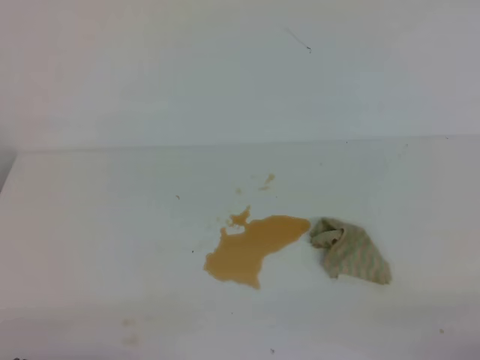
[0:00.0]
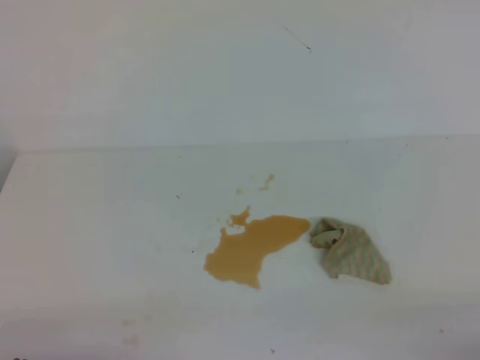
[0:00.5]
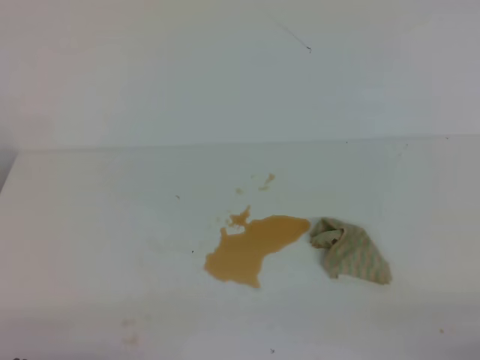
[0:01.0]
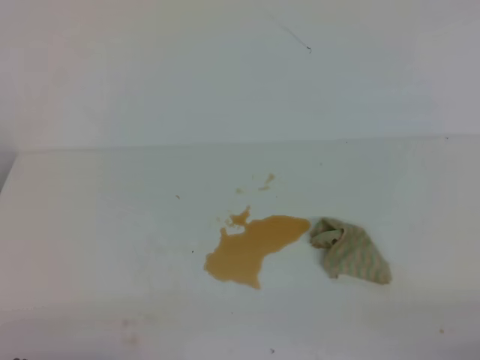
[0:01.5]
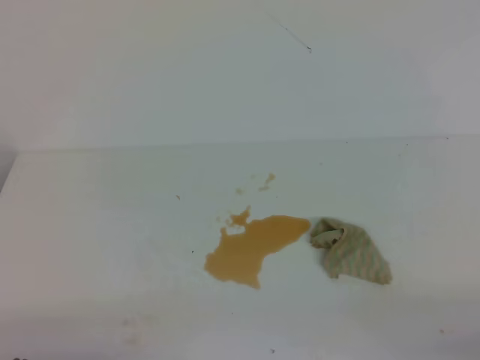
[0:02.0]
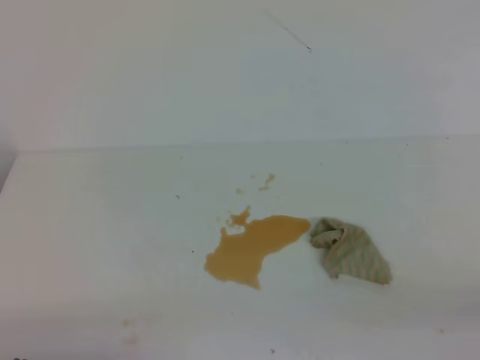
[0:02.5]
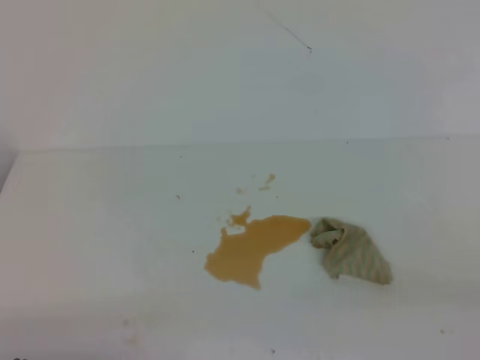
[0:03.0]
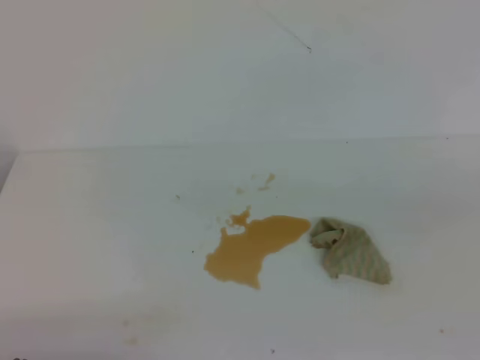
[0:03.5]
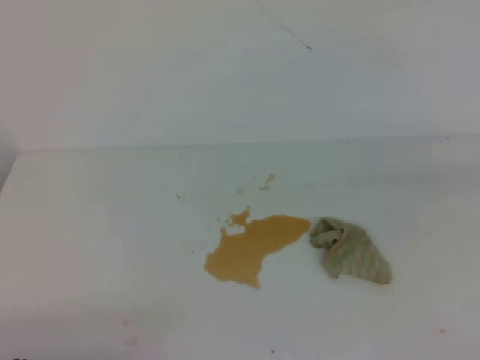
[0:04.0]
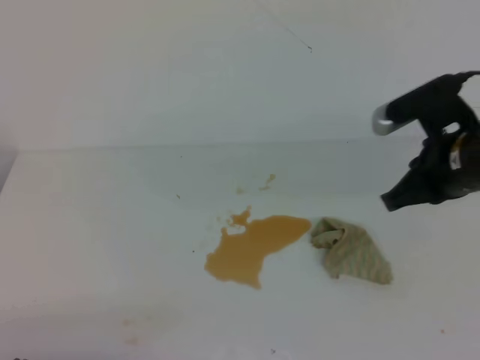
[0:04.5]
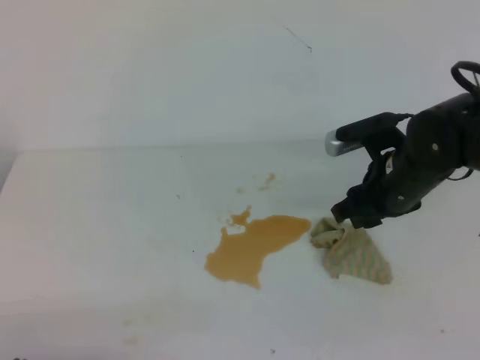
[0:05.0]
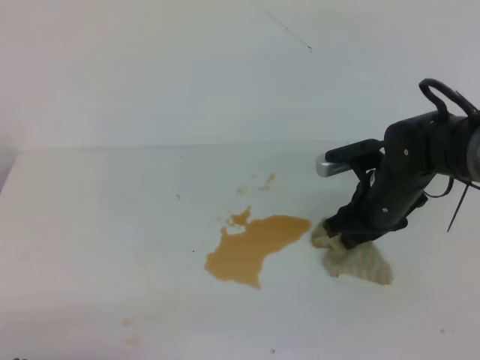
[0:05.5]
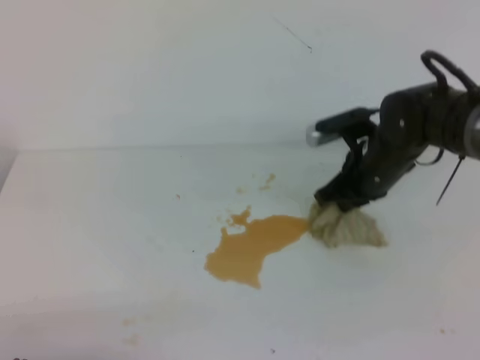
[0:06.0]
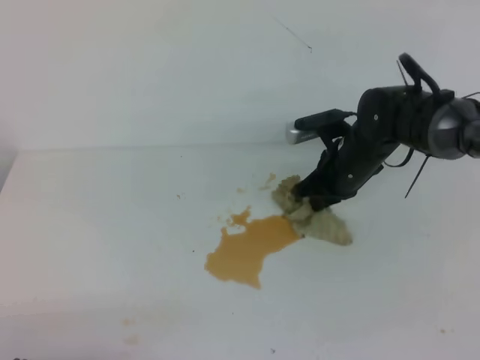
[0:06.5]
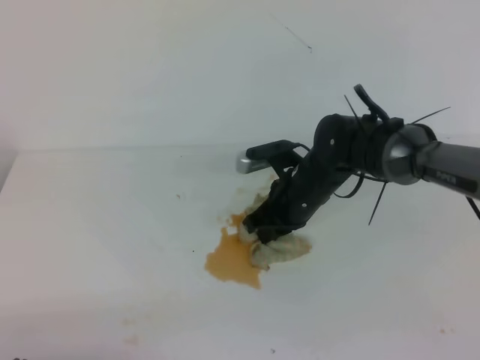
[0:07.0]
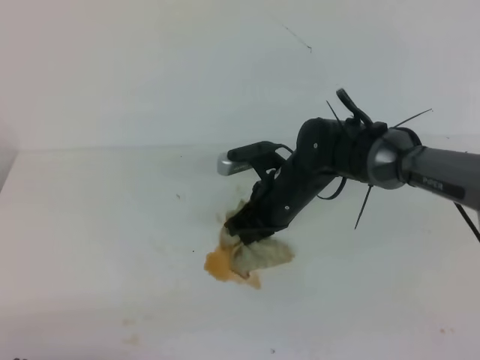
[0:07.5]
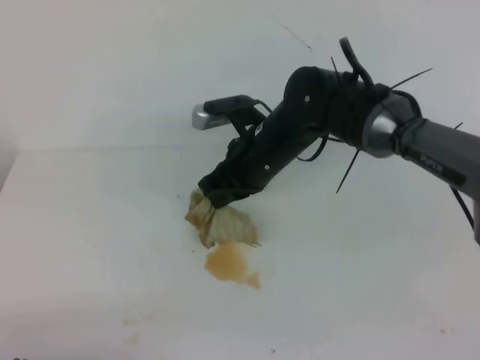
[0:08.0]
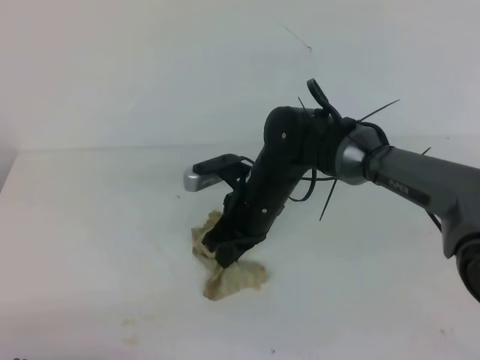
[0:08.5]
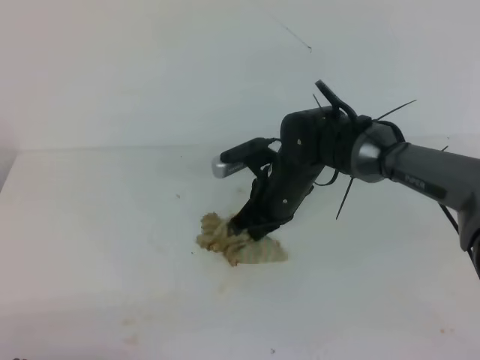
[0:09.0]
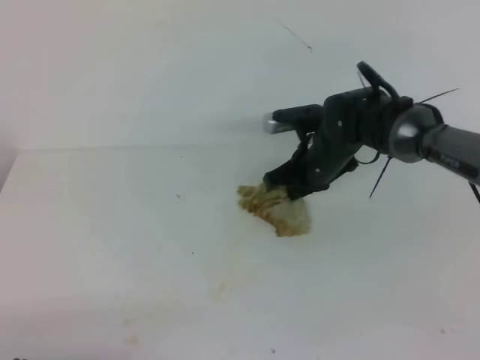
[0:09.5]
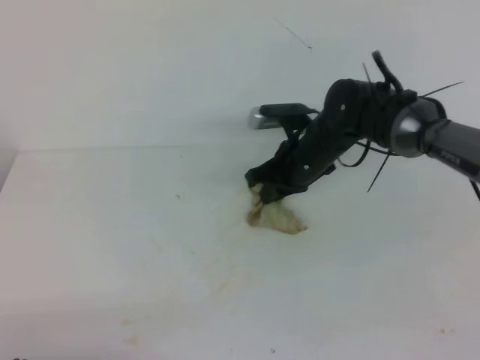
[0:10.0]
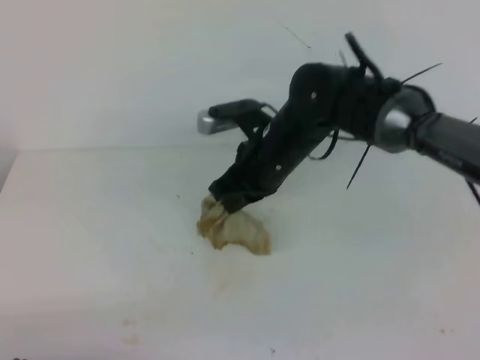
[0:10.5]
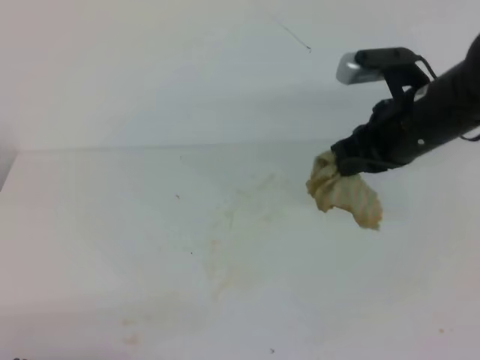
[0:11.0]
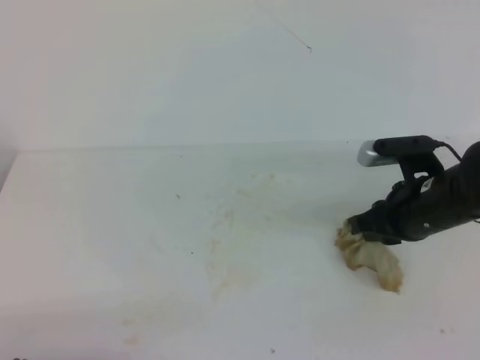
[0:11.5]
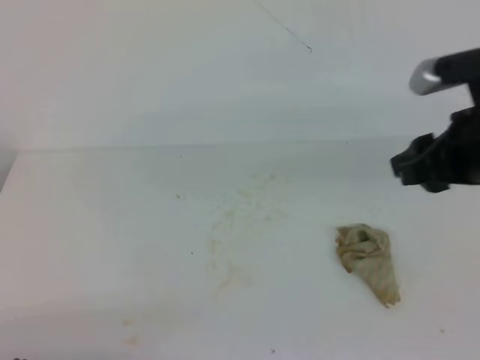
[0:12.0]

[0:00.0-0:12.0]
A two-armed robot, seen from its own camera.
0:04.0 to 0:06.0: The right gripper heads forward, to the left and downward, covering roughly 25 cm, and opens, then closes again.
0:06.0 to 0:08.0: The right gripper travels to the left by some 15 cm.
0:08.0 to 0:10.0: The right gripper shifts approximately 5 cm to the right.
0:10.0 to 0:12.0: The right gripper goes approximately 25 cm backward, to the right and upward, and opens its fingers.

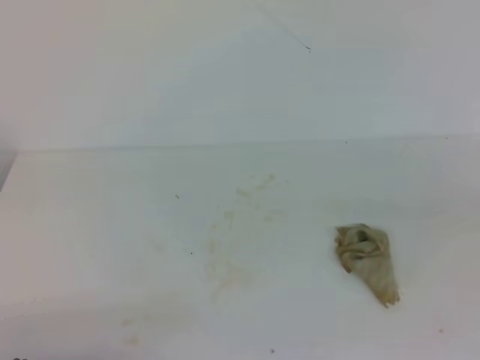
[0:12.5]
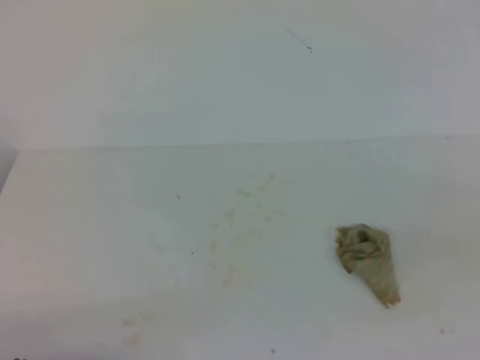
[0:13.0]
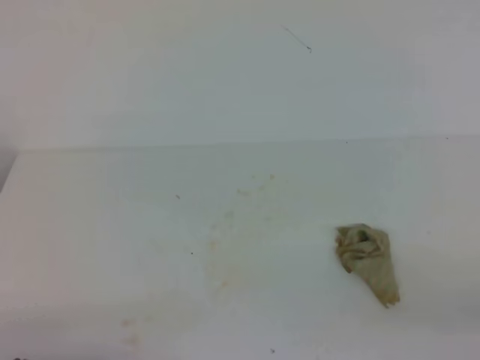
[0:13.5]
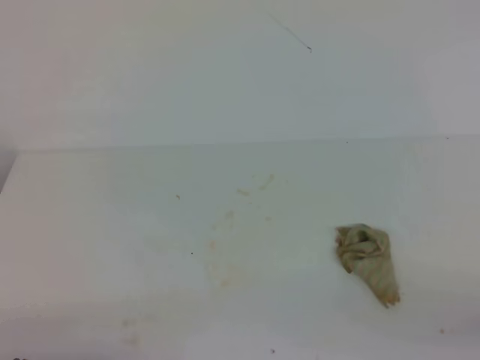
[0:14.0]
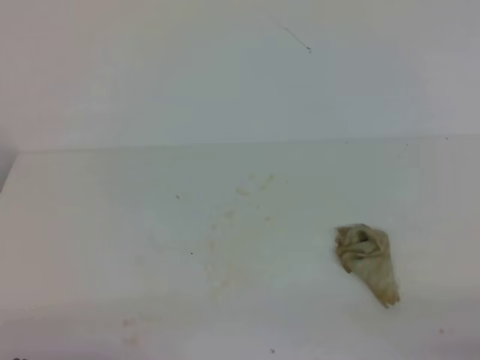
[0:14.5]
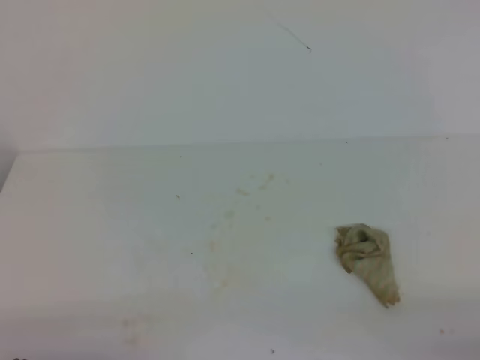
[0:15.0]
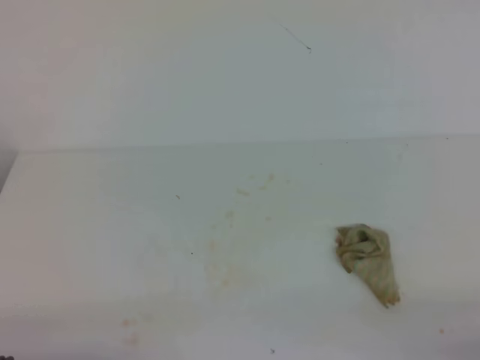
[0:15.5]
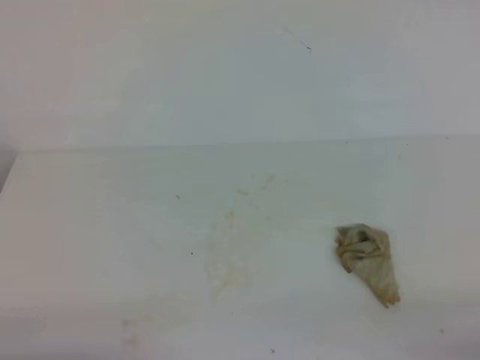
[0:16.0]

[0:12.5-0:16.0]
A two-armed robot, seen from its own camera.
0:12.5 to 0:14.5: The right gripper moves downward and backward, about 20 cm.

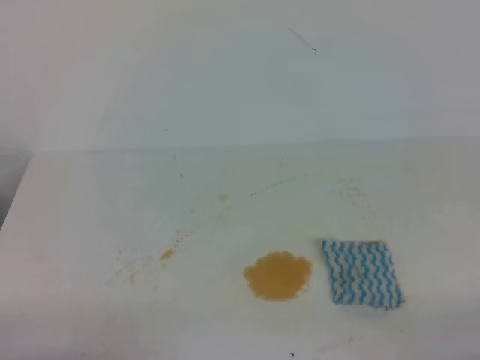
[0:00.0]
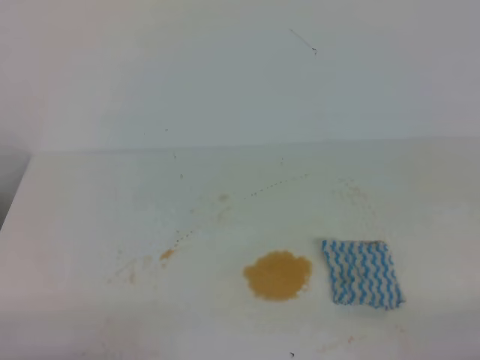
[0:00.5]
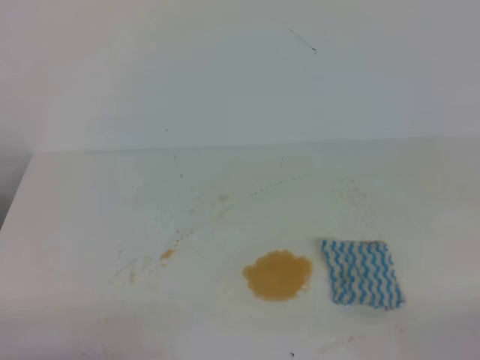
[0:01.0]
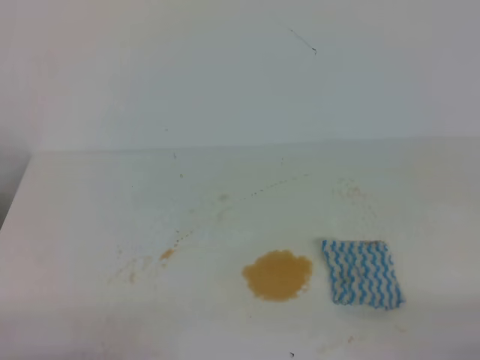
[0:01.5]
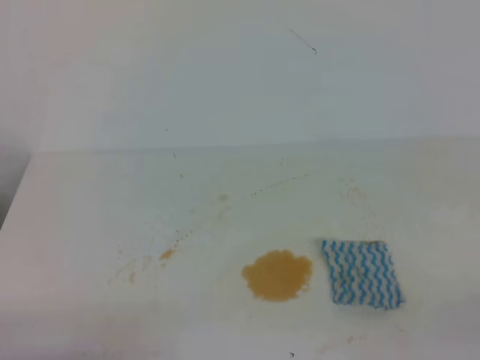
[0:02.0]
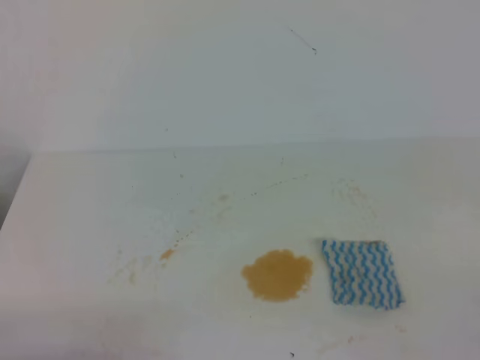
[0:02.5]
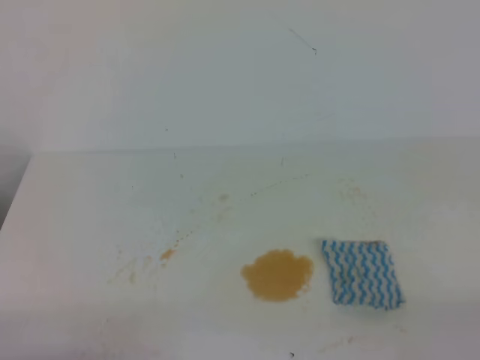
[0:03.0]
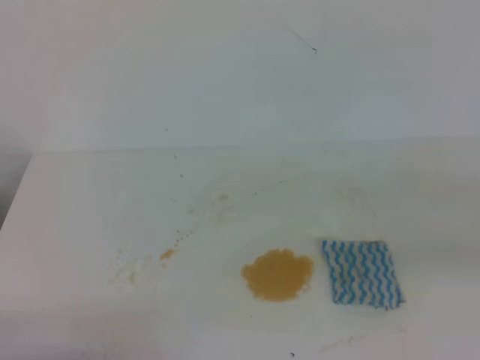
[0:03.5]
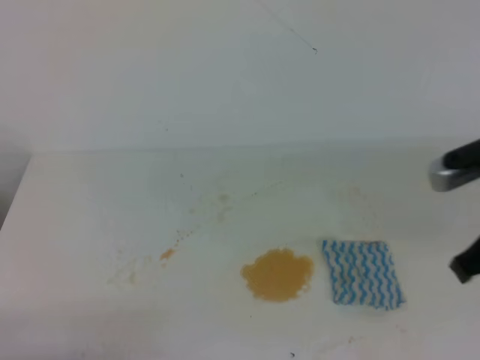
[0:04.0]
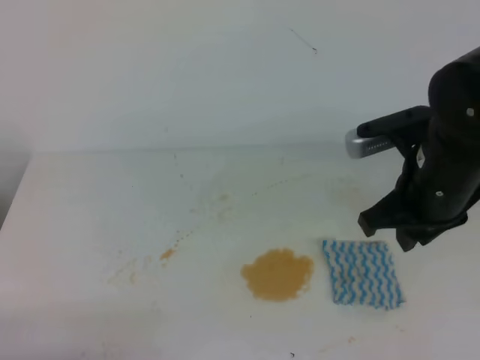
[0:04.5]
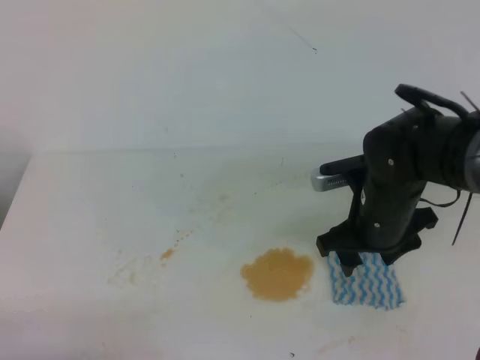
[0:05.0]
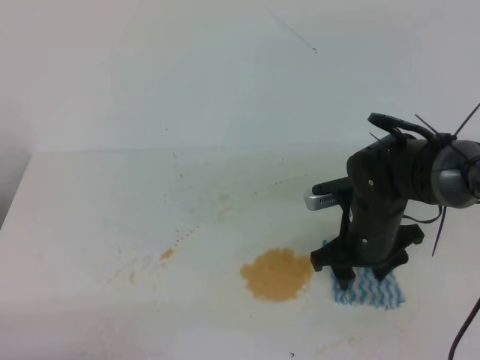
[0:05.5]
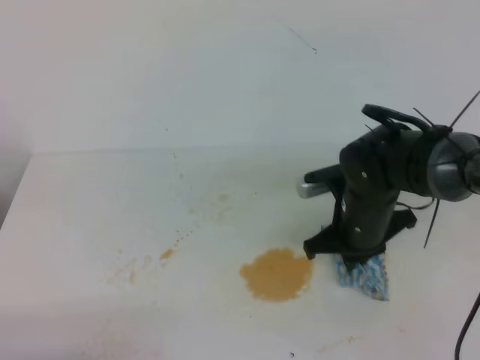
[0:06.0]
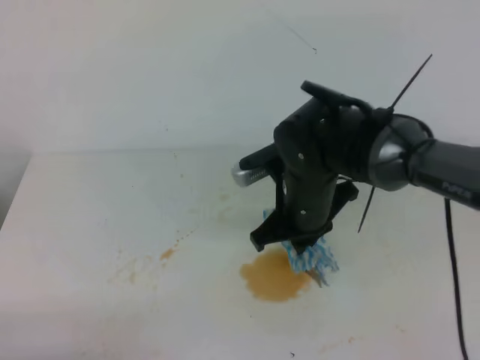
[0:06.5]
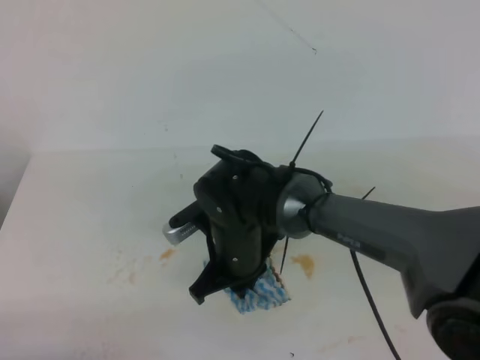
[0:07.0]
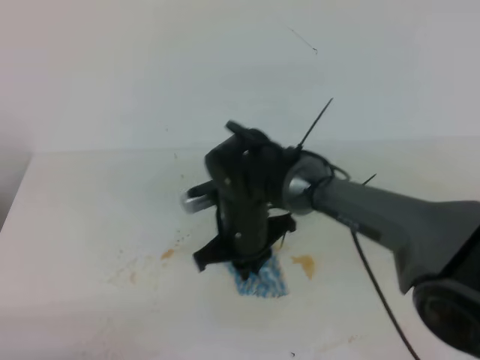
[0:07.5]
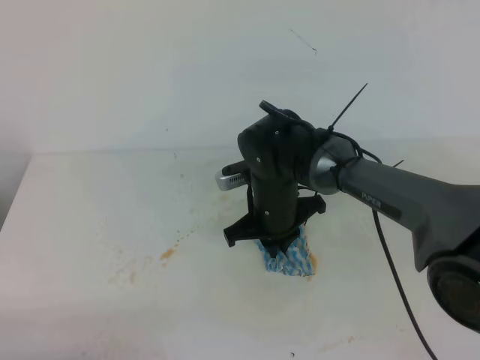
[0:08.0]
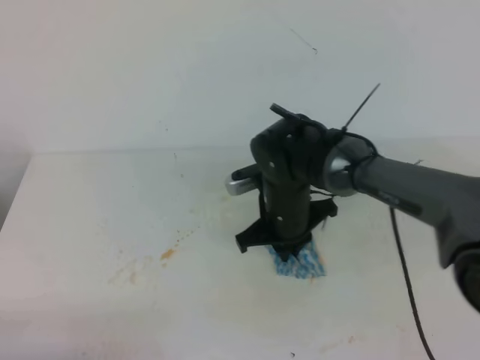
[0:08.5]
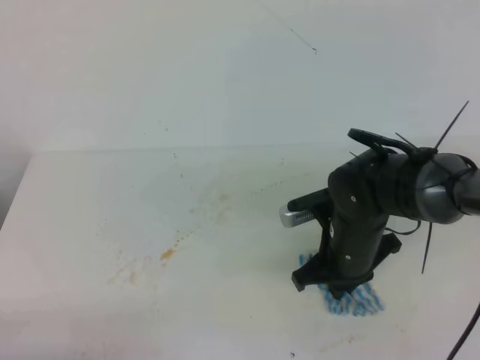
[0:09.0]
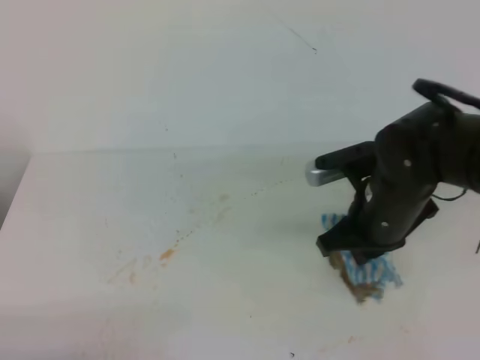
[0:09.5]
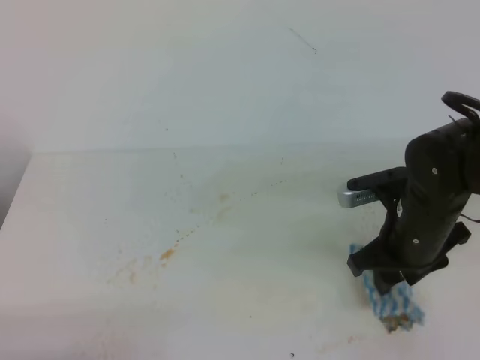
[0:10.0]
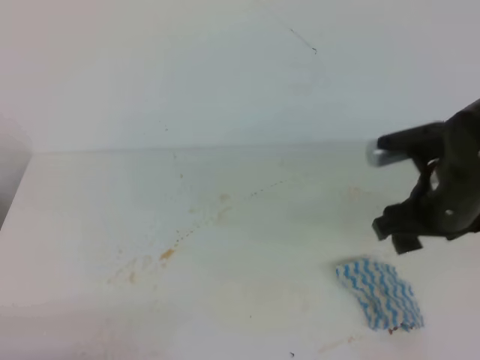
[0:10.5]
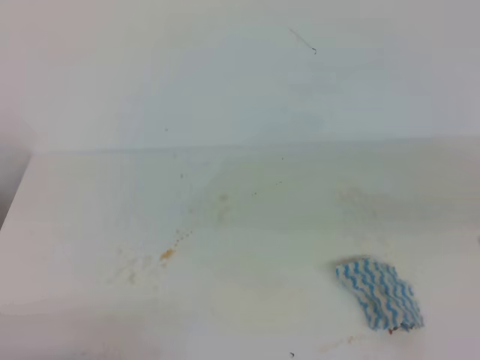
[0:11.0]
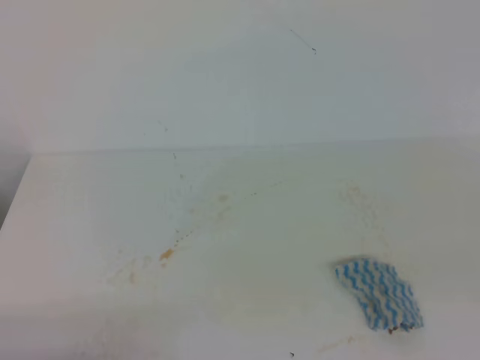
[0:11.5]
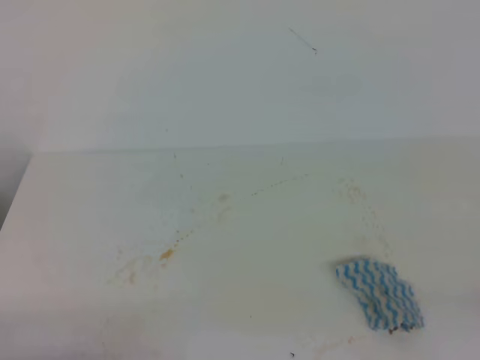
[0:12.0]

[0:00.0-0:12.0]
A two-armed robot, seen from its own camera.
0:02.0 to 0:04.0: The right gripper moves forward, upward and to the left, about 20 cm.
0:04.0 to 0:06.0: The right gripper is displaced downward, forward and to the left by roughly 25 cm, and opens and closes again.
0:06.0 to 0:08.0: The right gripper goes roughly 10 cm to the left.
0:08.0 to 0:10.0: The right gripper goes about 15 cm to the right and backward, and opens its fingers.
0:10.0 to 0:12.0: The right gripper travels backward, to the right and upward by roughly 35 cm, and closes up.
